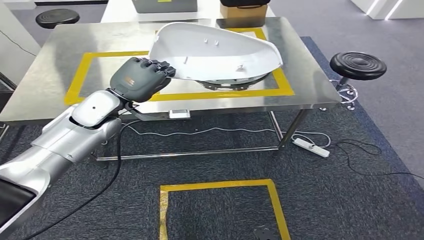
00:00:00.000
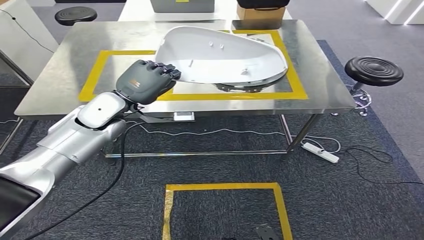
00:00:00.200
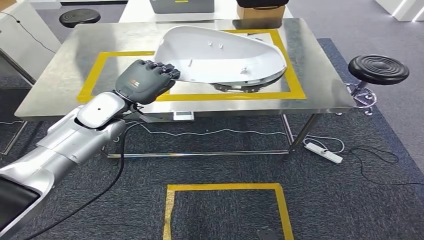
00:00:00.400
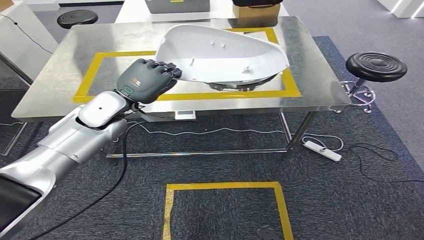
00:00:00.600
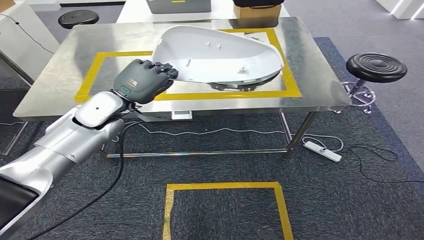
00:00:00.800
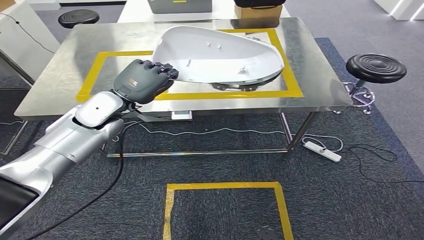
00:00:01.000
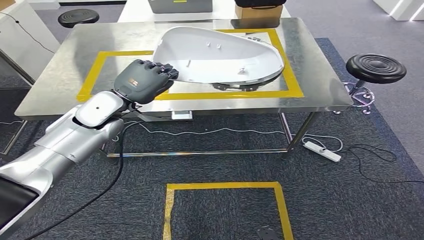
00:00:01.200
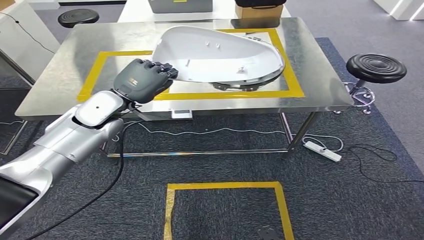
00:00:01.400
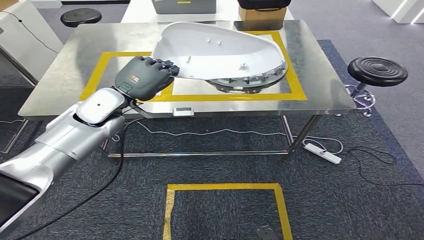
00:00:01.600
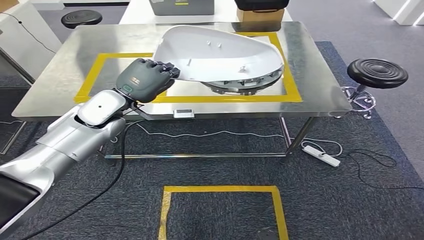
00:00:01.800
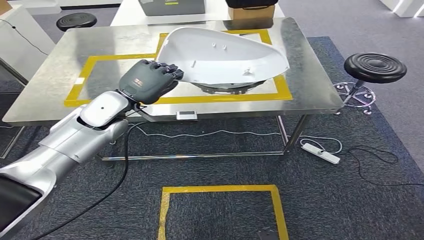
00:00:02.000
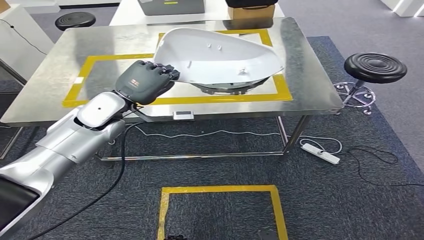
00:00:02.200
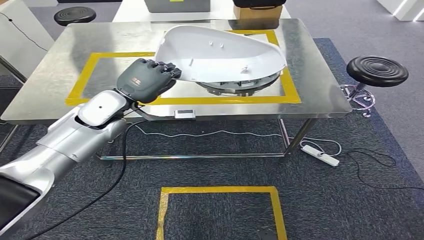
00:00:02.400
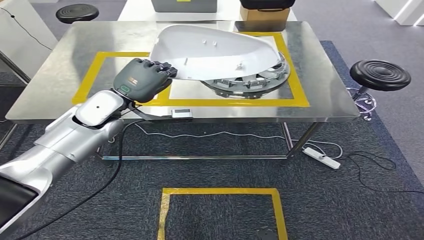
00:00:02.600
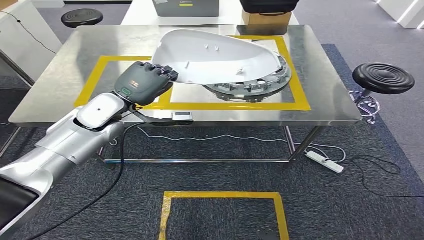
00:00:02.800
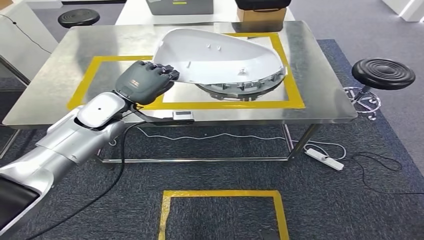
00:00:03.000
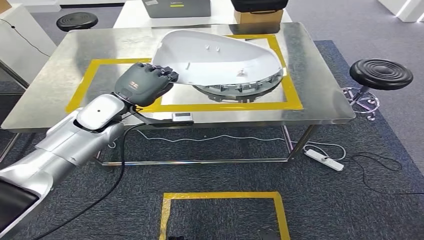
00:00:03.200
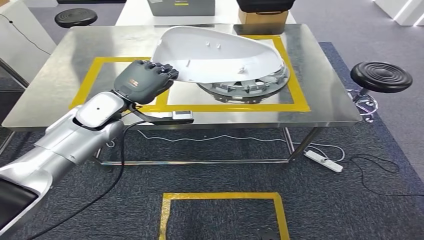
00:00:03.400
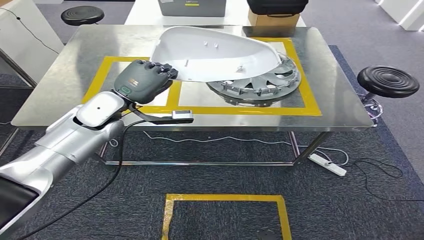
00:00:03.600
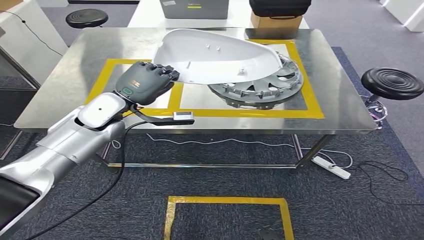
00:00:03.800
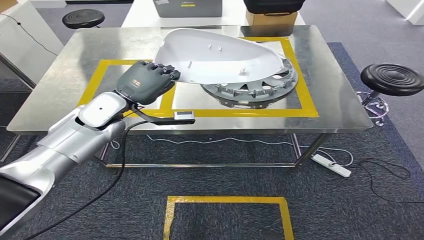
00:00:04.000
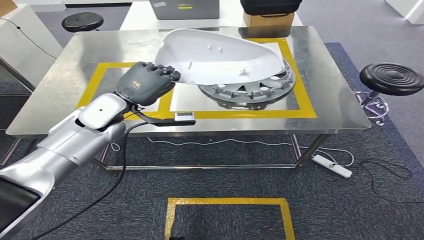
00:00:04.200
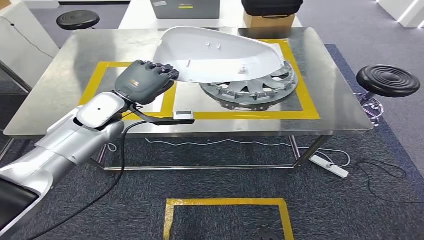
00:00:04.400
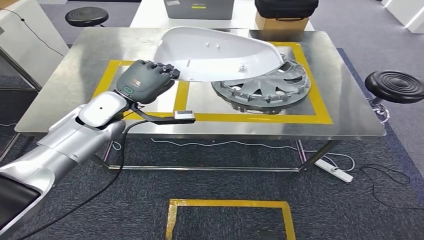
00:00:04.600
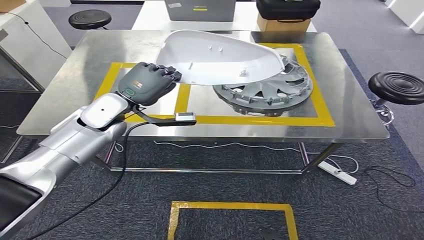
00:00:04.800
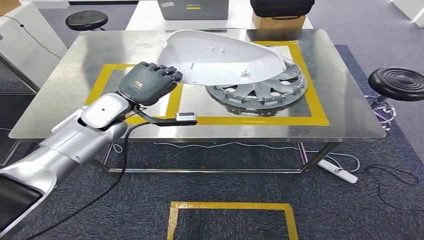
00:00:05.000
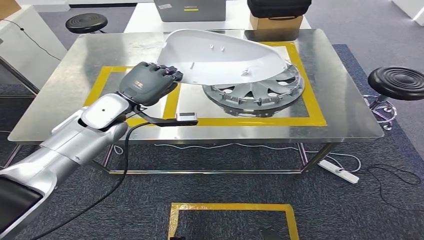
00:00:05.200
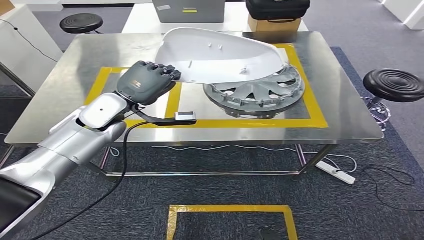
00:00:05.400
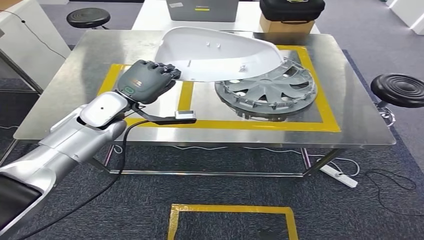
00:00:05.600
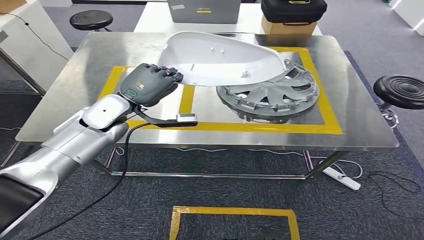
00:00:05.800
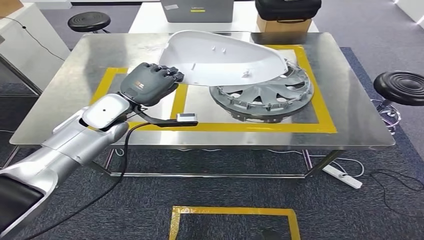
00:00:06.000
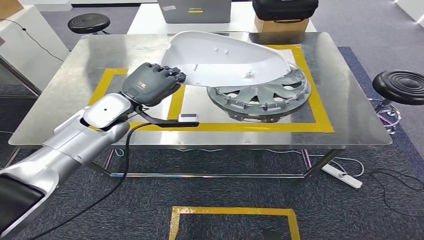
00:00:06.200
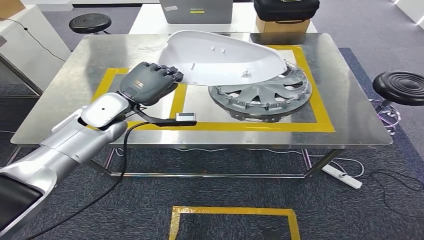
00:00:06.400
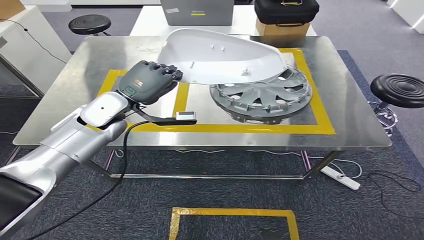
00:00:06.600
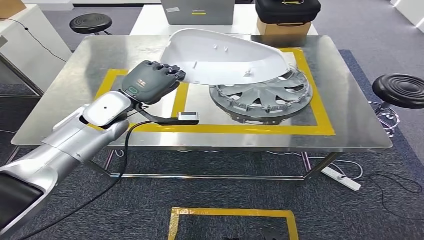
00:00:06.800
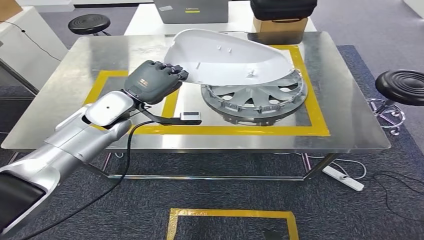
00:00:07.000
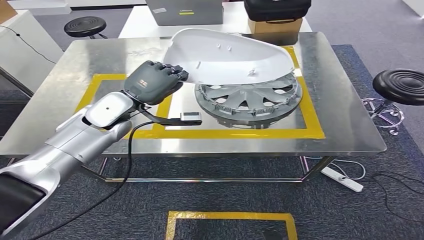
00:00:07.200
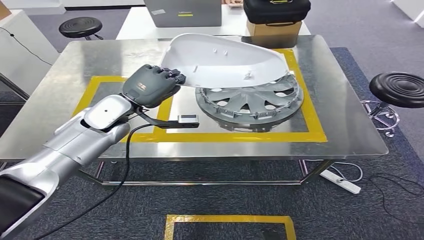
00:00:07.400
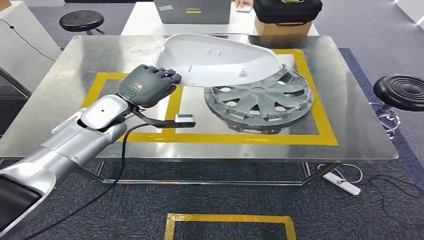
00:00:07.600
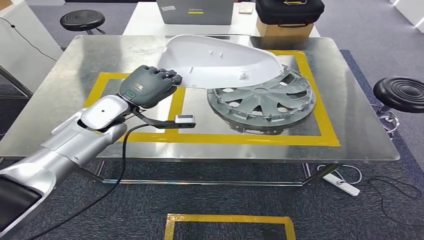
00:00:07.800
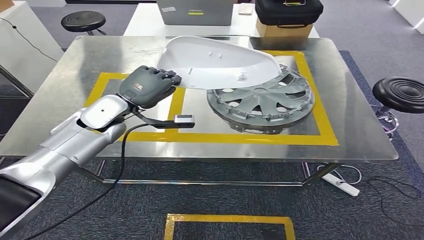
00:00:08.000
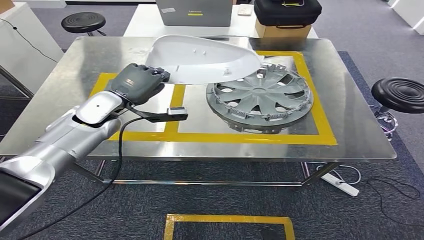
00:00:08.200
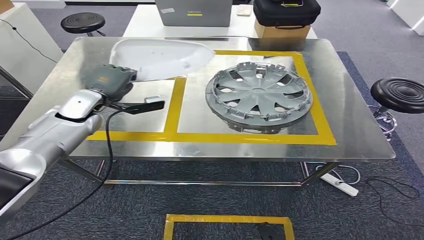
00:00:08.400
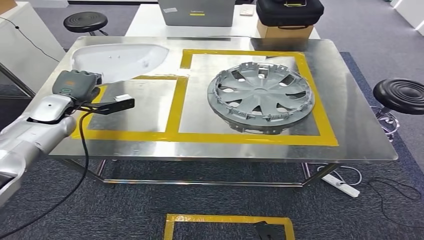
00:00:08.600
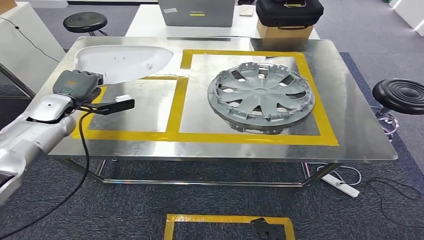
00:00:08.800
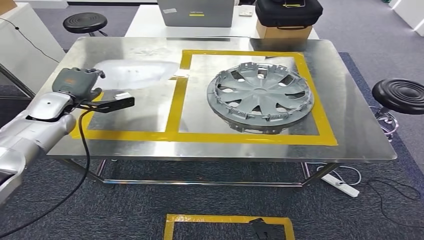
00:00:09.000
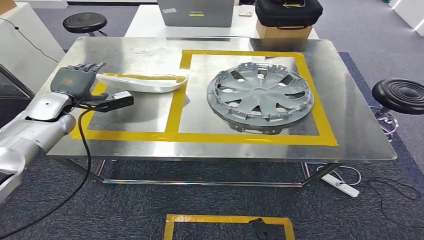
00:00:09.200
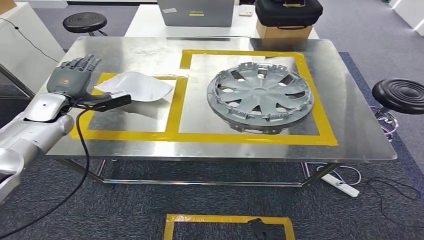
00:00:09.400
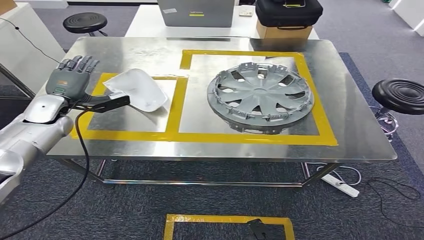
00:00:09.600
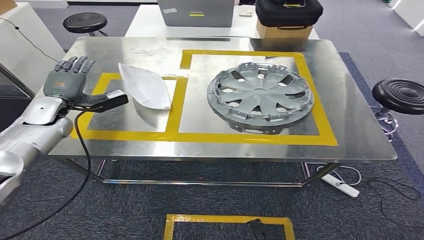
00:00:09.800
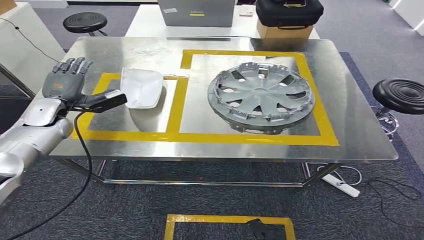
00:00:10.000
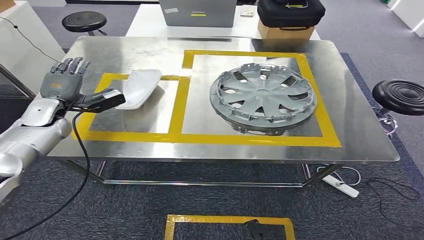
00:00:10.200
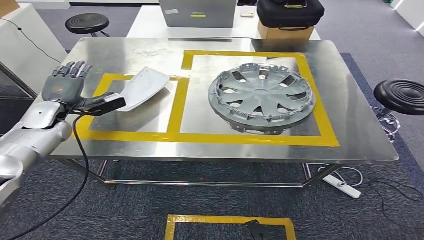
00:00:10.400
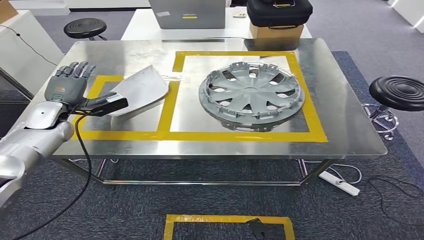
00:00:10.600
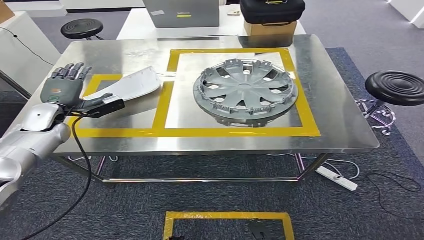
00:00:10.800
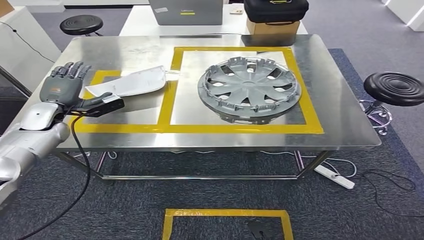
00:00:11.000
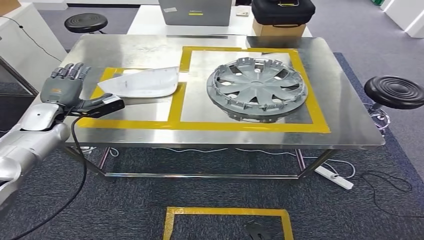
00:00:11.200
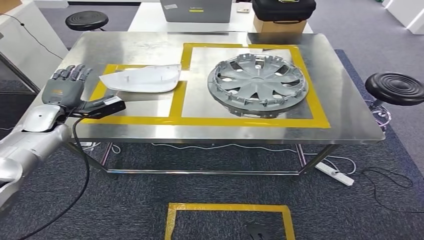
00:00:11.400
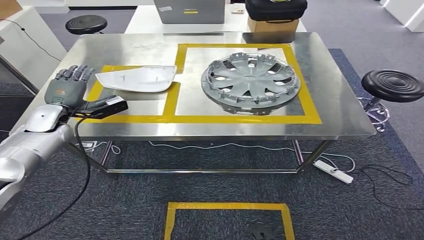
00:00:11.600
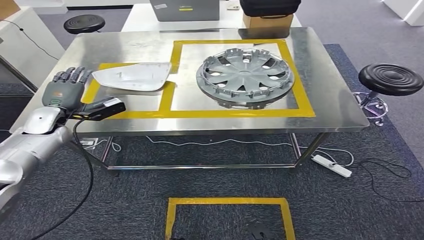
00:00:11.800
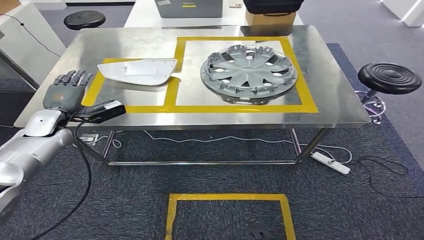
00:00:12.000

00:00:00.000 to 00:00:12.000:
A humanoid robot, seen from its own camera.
Step, 00:00:00.000 to 00:00:07.600: Move the small component to the workbench.
Step, 00:00:07.800 to 00:00:11.200: Insert the small component into the corresponding slot on the workbench.
00:00:09.000 to 00:00:10.400: The hands stay close to where they were, moving slightly.

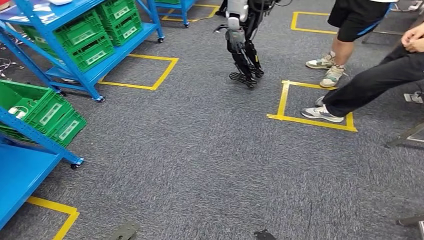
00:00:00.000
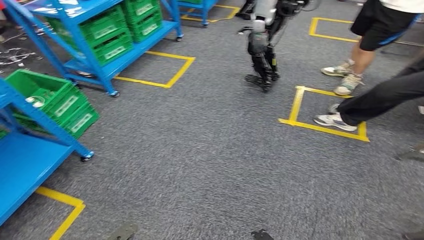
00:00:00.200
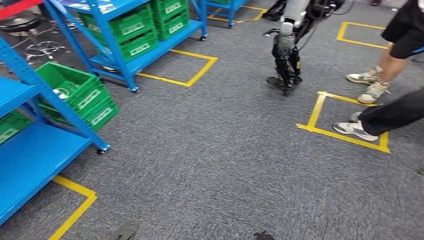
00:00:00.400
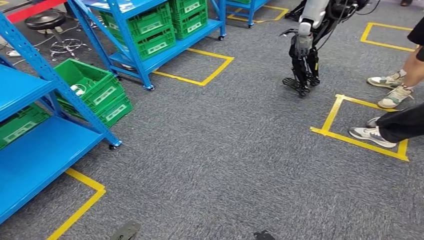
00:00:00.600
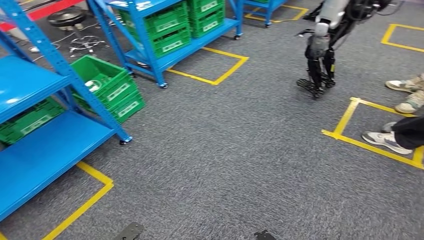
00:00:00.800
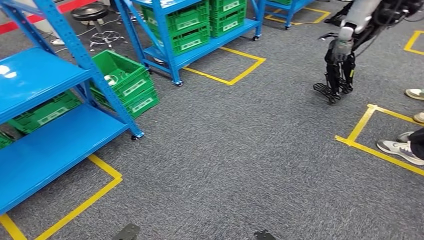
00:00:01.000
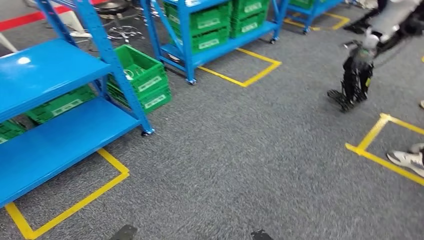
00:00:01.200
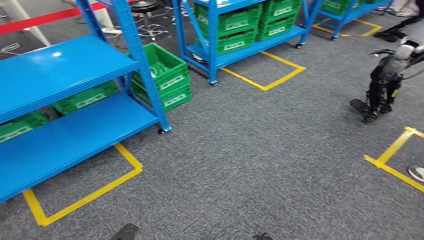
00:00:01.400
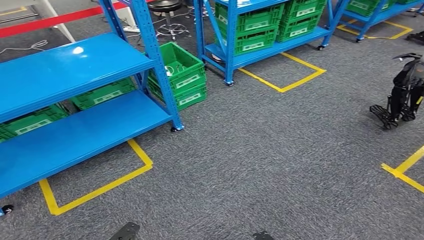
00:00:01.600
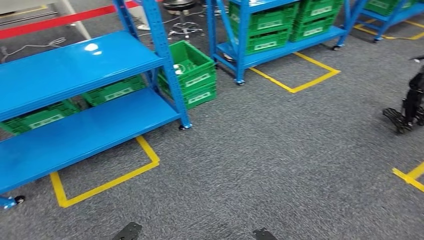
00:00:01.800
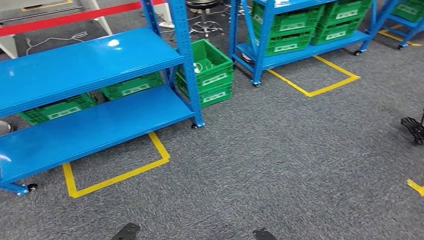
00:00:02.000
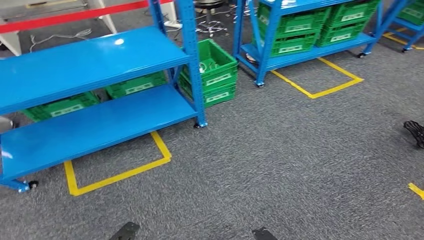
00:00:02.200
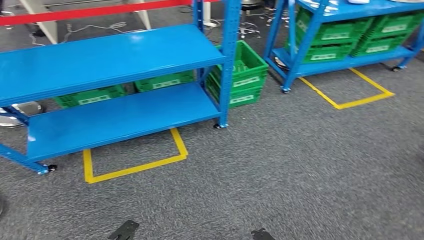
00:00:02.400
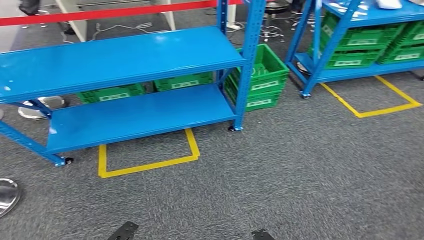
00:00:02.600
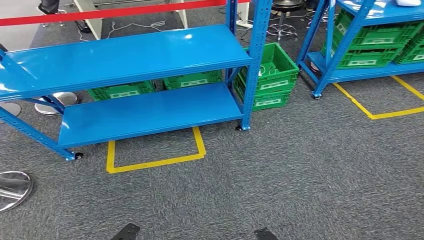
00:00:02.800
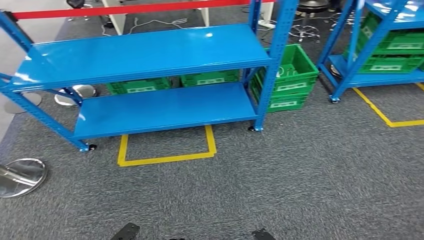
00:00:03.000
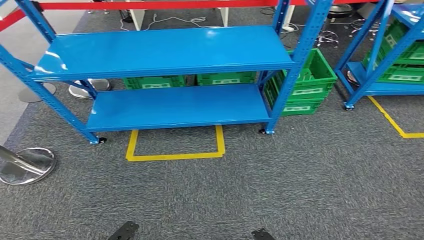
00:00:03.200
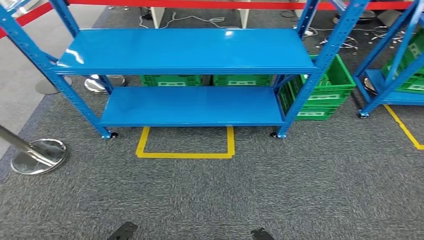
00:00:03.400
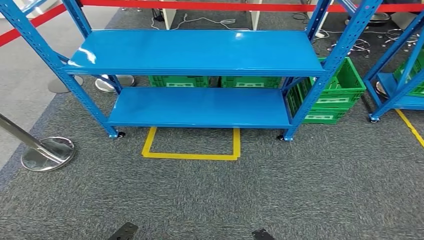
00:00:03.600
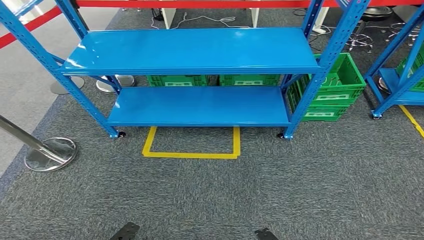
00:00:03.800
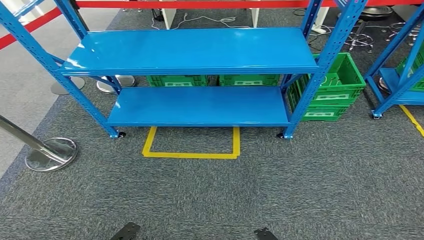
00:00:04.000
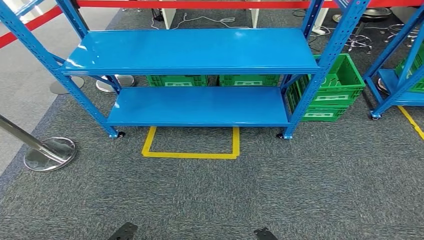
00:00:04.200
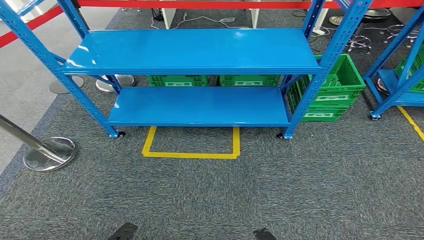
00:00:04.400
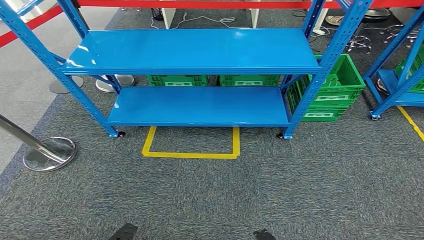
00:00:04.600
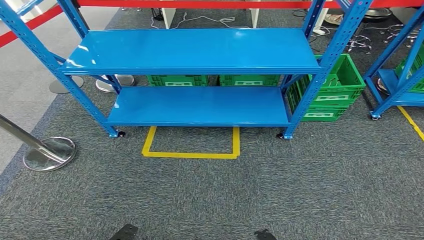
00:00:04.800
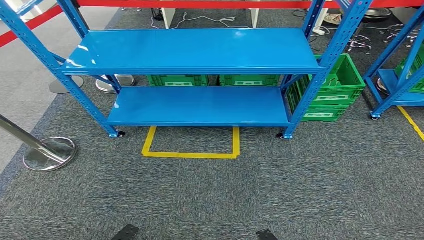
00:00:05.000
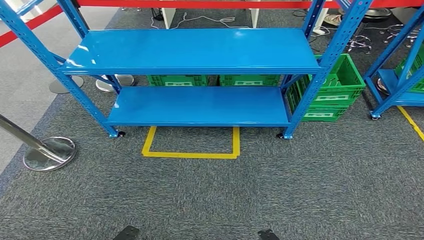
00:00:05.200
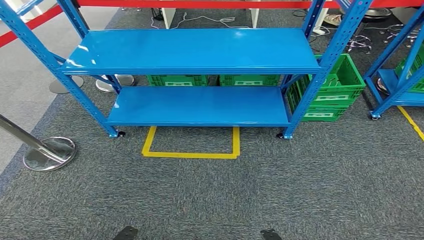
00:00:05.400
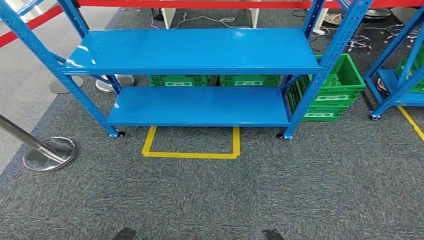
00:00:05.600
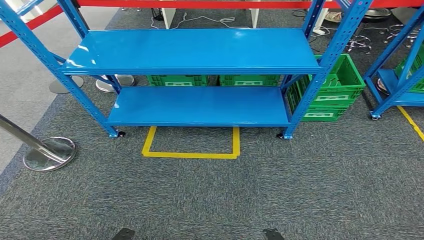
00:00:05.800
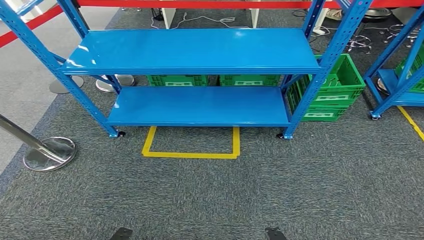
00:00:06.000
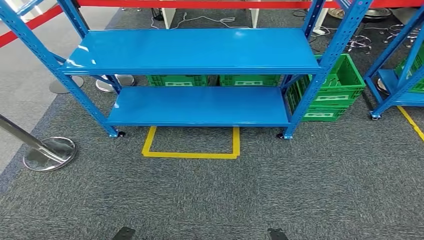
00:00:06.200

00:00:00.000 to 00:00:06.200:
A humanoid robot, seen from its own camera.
Step, 00:00:00.000 to 00:00:06.000: Return to the initial position at the workbench.
